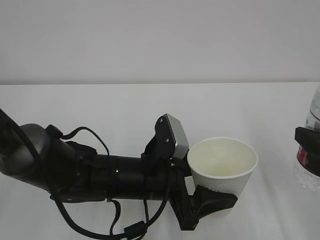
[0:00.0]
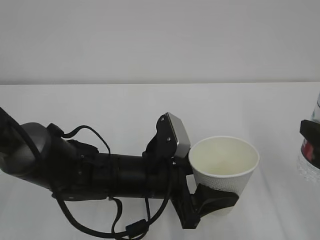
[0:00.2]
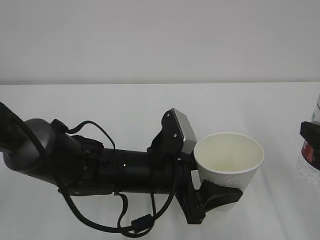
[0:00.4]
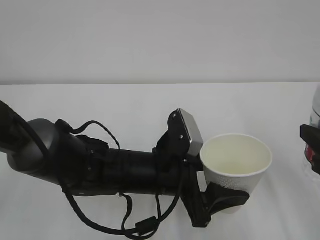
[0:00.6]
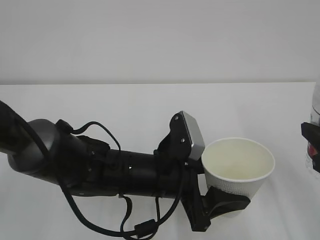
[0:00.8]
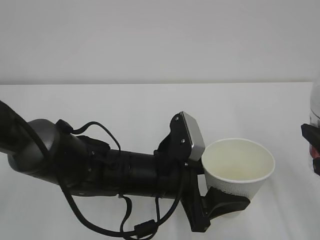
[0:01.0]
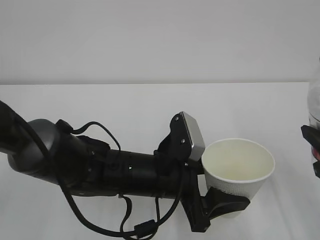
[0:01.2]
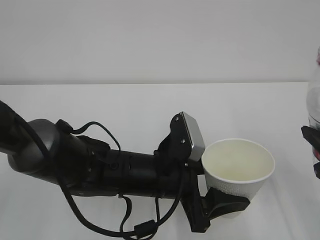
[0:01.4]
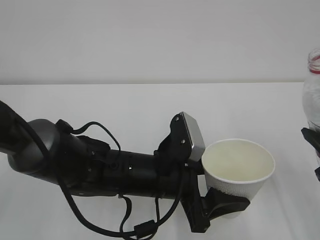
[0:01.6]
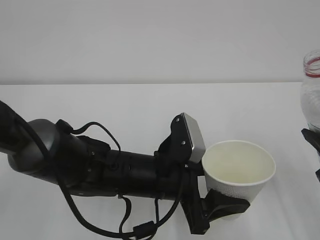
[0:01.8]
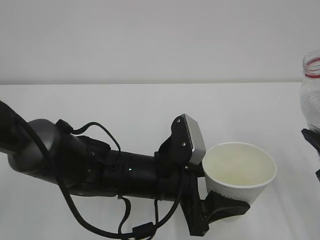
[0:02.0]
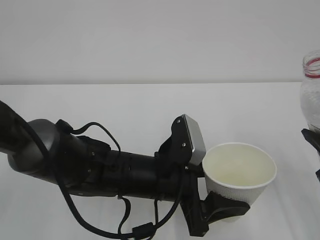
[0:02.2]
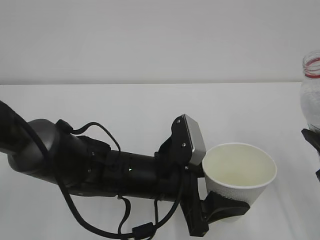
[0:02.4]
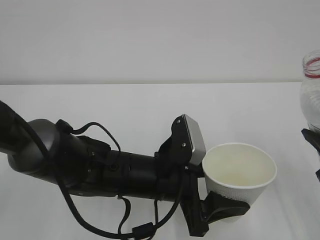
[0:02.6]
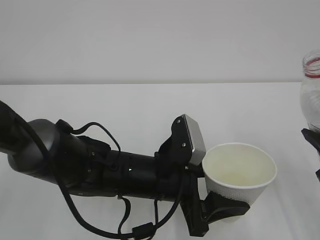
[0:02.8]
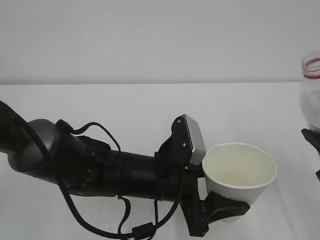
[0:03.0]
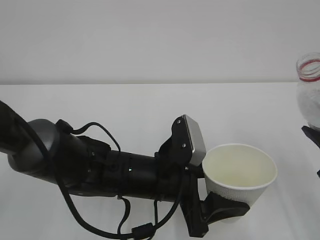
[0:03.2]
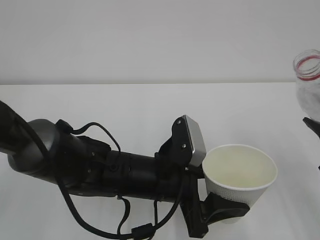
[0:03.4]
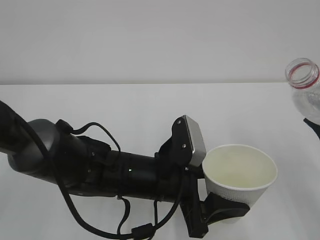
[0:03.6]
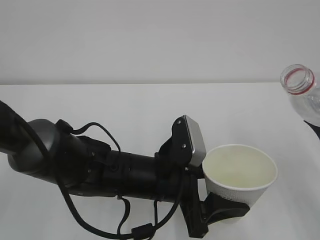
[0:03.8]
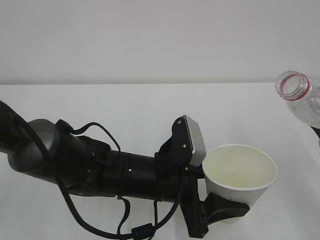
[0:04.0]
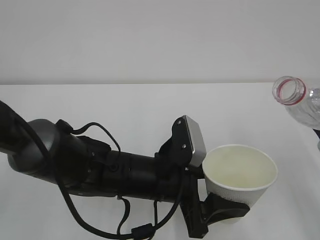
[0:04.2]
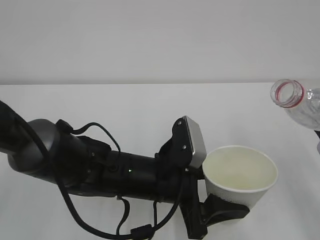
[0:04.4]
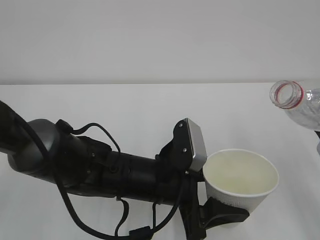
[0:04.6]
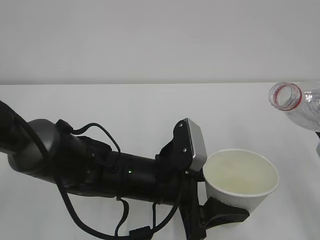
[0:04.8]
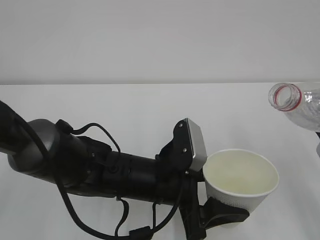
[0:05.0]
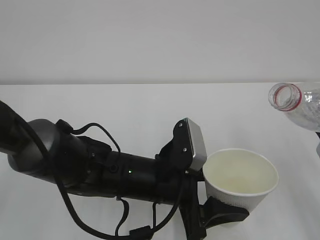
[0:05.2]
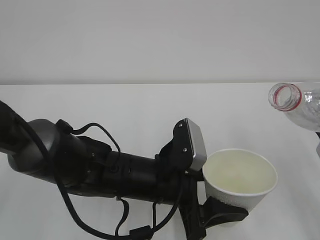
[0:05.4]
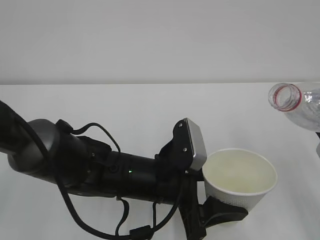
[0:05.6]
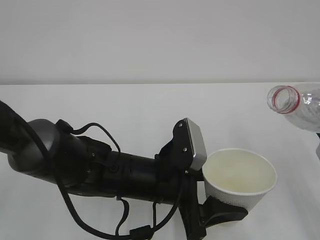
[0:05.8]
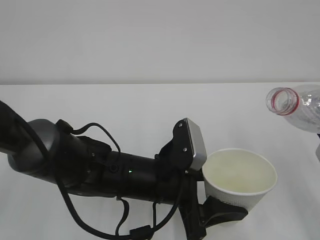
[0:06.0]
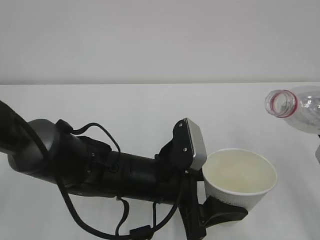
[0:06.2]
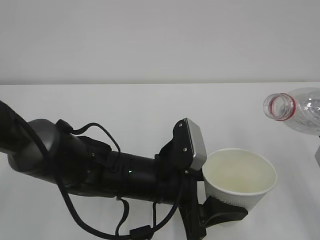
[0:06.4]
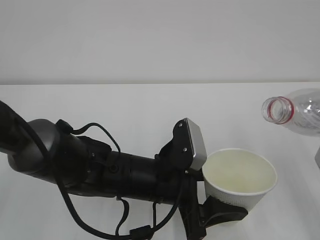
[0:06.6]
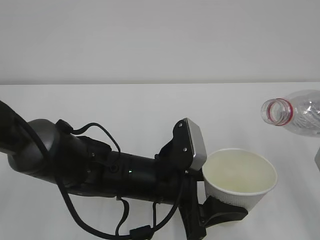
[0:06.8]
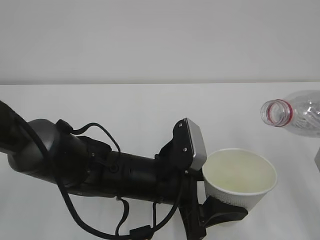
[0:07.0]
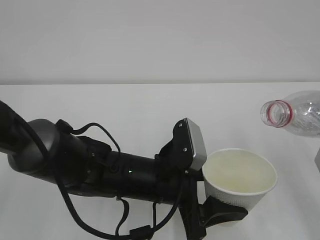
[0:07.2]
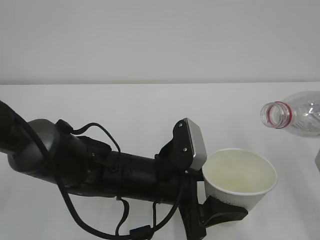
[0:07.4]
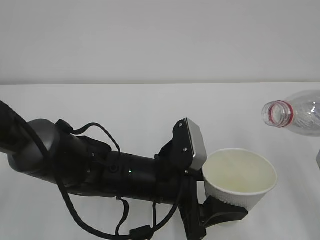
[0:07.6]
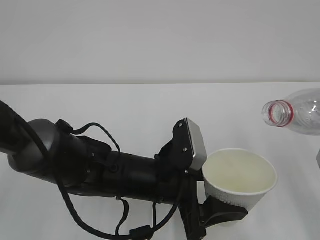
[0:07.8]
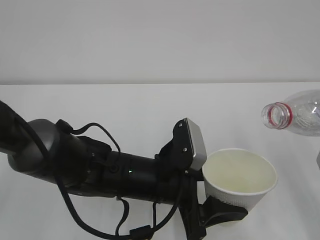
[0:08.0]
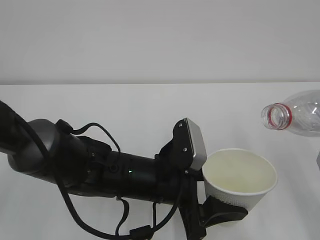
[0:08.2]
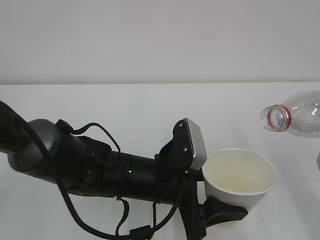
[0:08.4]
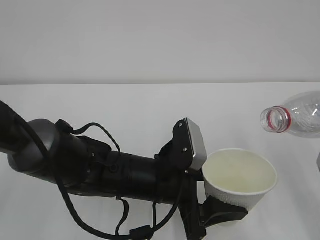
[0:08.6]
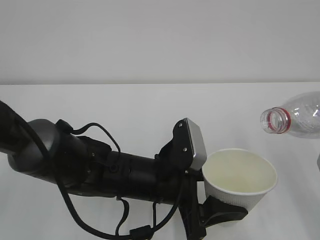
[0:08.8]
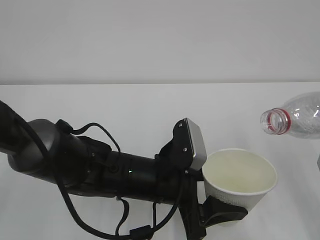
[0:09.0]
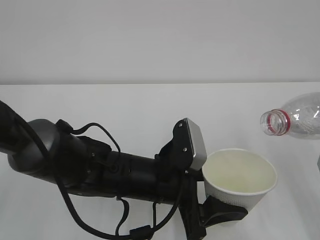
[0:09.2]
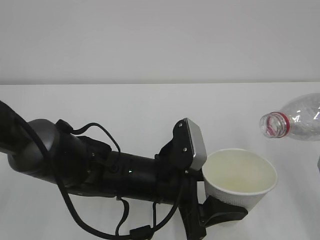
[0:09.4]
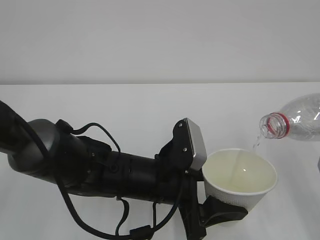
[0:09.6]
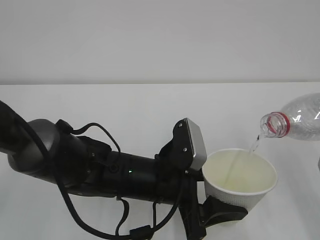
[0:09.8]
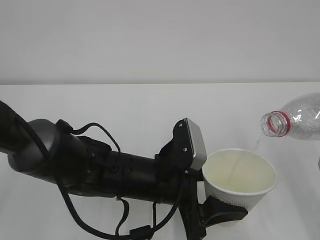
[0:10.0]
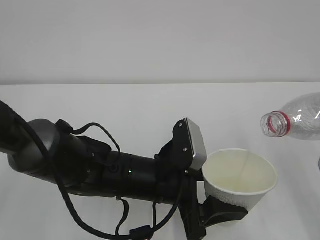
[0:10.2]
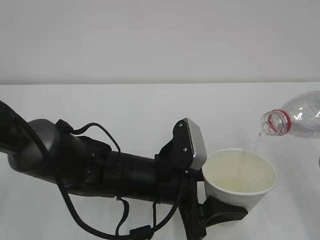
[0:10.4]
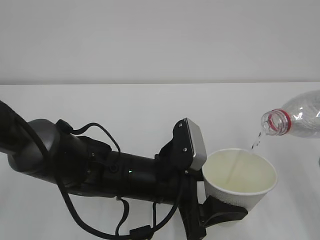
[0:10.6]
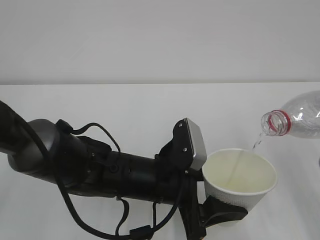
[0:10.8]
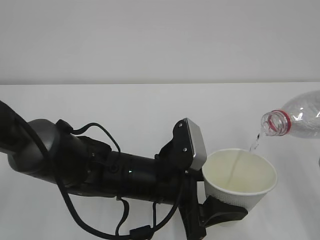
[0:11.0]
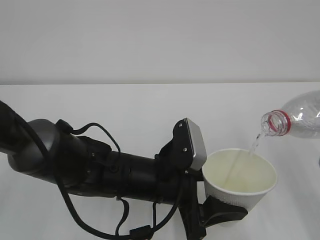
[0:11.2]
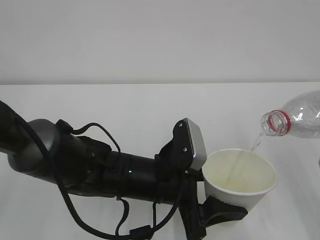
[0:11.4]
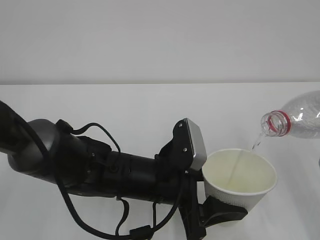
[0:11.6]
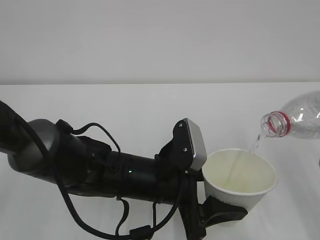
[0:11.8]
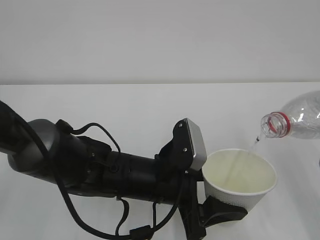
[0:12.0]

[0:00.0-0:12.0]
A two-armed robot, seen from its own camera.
0:01.6 to 0:03.0: The two grippers keep their place.
0:04.4 to 0:06.0: Neither gripper changes place.
0:06.0 to 0:07.6: There are only small adjustments of the grippers.
0:09.0 to 0:10.4: The two grippers keep their place.
0:10.4 to 0:12.0: Neither gripper changes place.

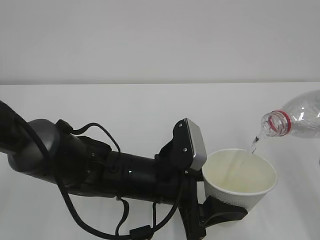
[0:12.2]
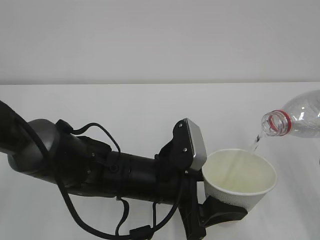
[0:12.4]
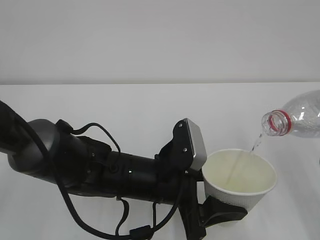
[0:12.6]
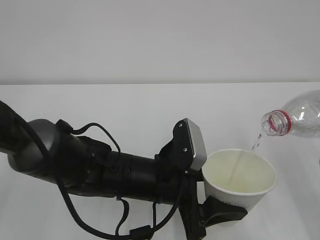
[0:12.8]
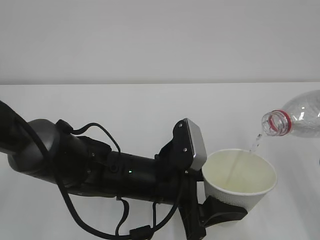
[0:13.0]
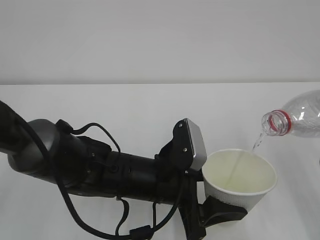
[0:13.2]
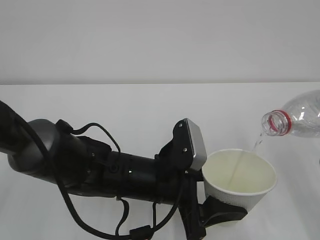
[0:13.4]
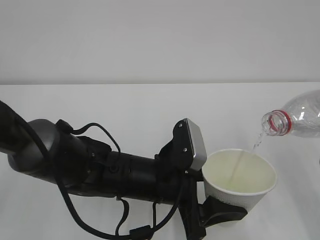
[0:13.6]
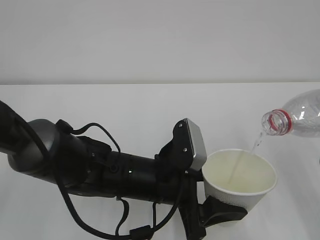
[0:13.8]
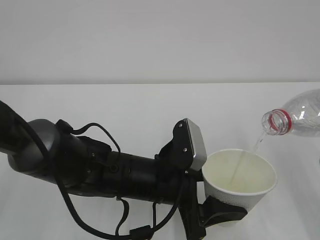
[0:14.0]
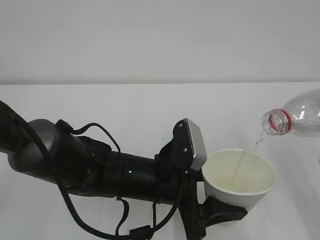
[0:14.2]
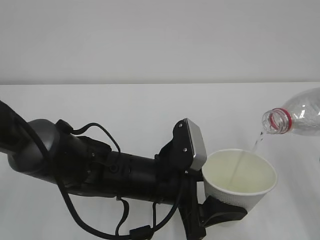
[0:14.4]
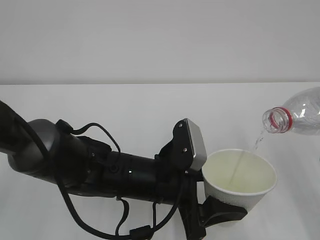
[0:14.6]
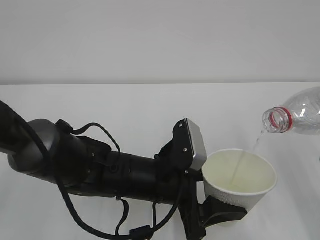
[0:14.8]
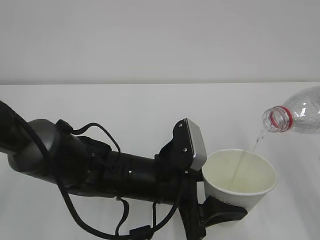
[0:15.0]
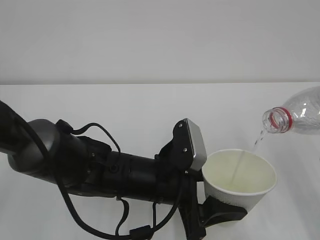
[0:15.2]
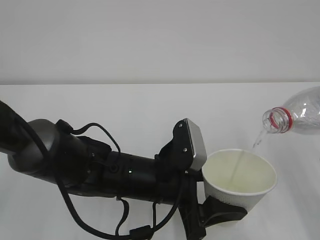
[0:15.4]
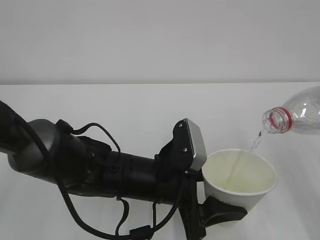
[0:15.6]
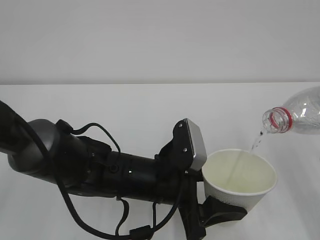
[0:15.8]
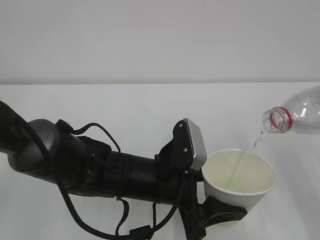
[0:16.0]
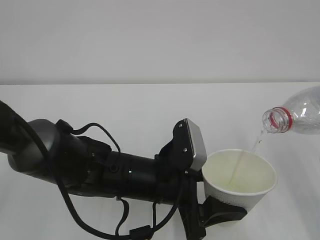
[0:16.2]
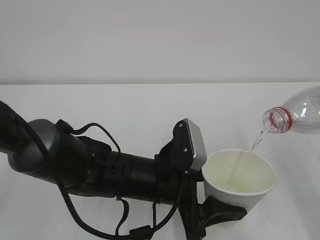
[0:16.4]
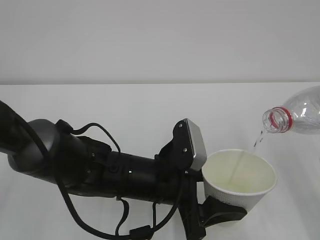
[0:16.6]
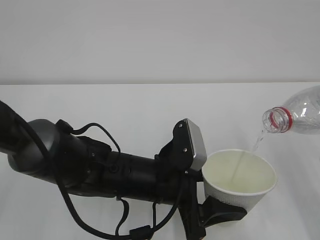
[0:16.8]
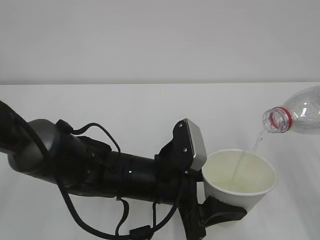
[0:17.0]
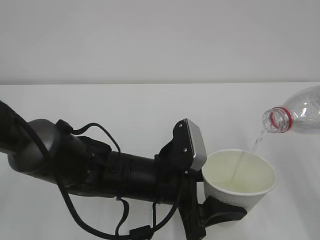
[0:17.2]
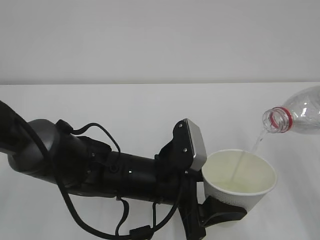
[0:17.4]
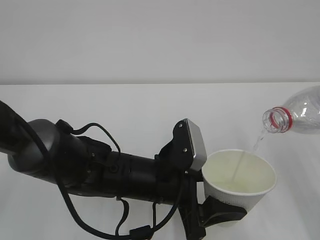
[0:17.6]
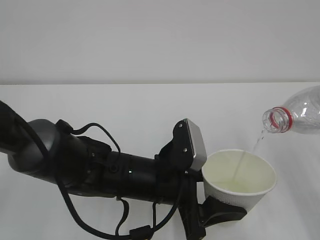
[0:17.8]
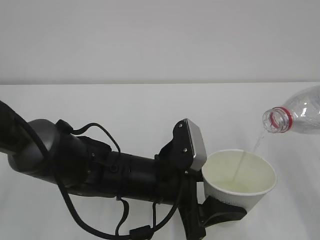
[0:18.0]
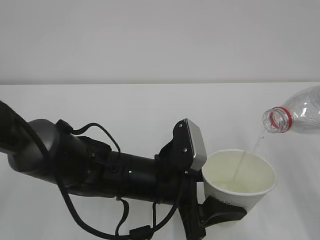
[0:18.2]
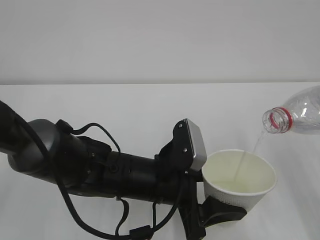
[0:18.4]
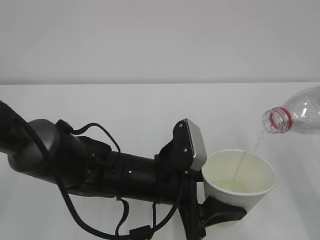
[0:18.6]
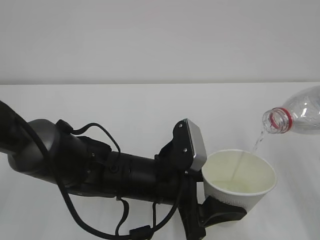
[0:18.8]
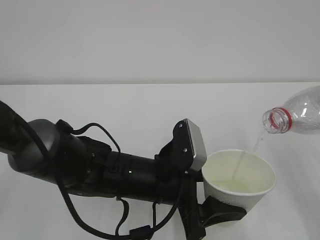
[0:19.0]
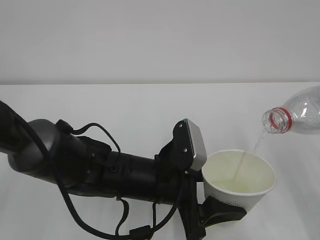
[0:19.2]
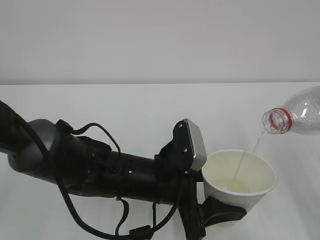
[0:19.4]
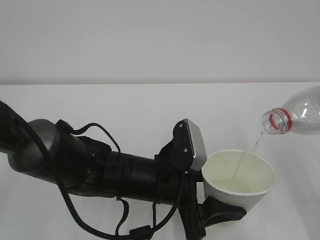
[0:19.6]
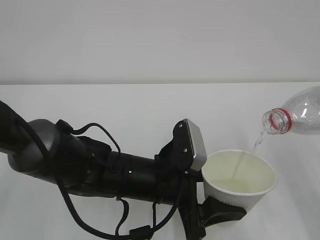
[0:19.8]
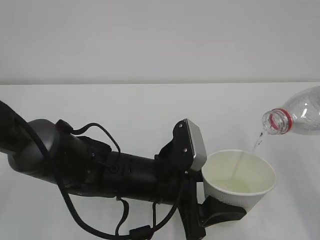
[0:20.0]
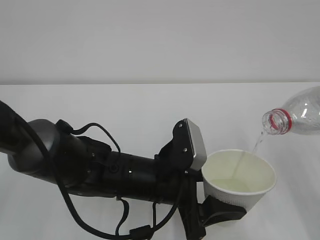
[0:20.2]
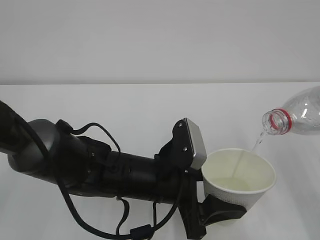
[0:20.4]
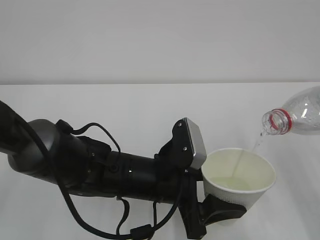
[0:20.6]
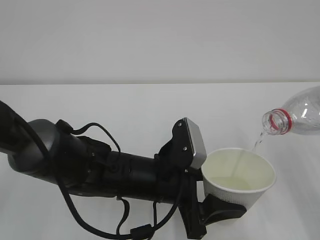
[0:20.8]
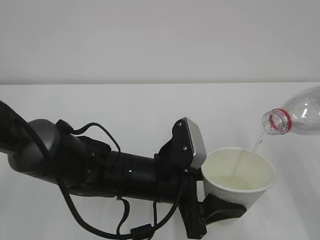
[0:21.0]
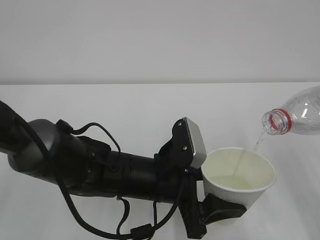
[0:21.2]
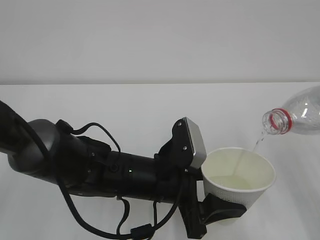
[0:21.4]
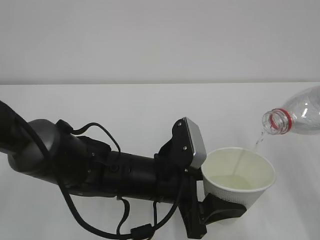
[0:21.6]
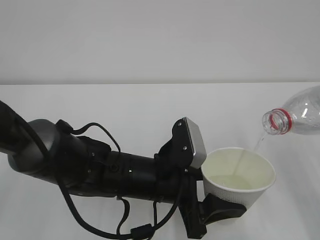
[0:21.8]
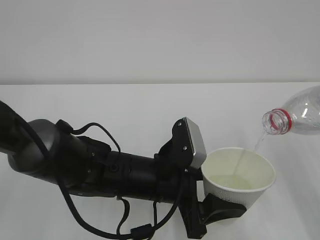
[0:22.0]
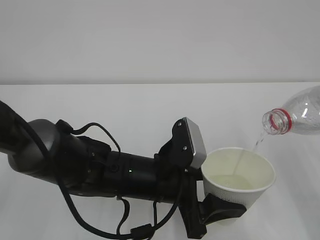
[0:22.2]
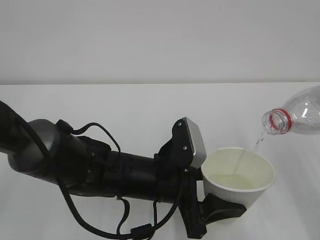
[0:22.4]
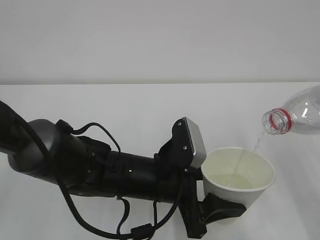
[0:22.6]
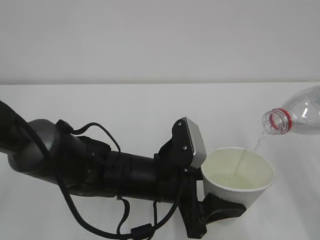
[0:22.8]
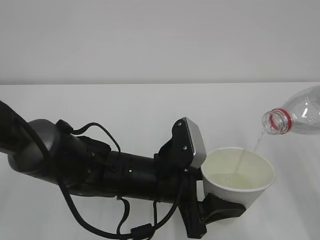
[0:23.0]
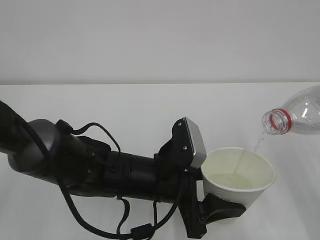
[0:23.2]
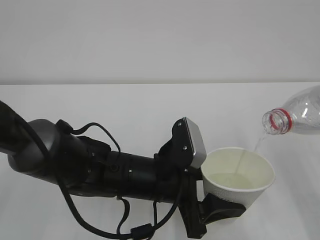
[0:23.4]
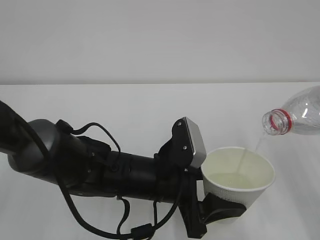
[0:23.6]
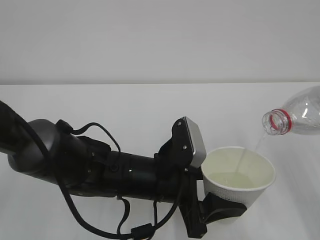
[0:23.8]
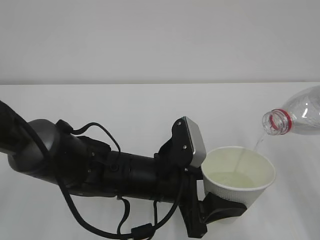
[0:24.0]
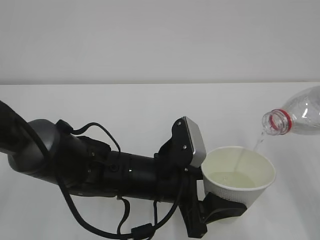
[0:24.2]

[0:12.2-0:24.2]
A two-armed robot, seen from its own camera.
0:12.2 to 0:24.2: Neither gripper changes place.
